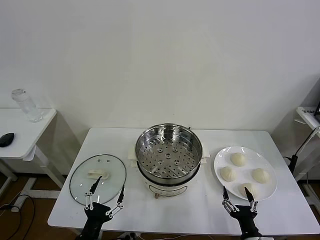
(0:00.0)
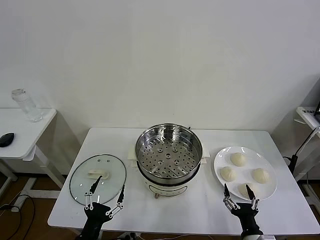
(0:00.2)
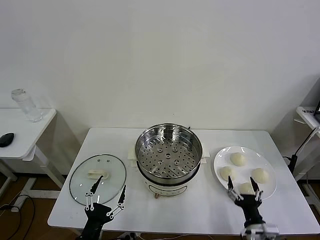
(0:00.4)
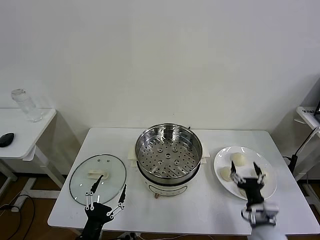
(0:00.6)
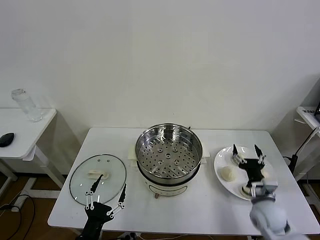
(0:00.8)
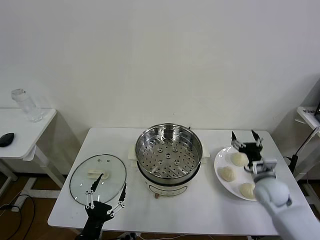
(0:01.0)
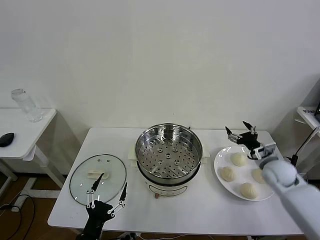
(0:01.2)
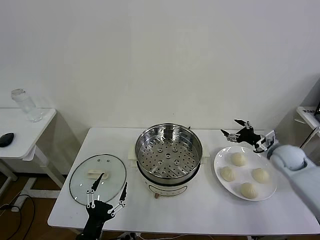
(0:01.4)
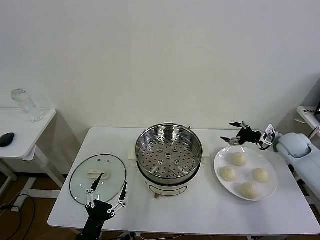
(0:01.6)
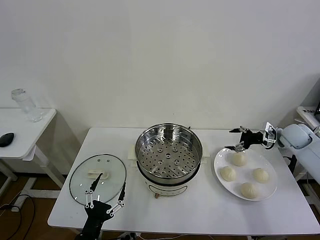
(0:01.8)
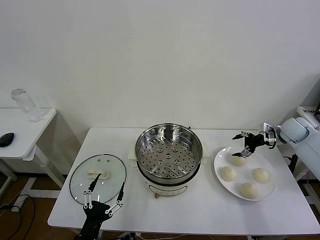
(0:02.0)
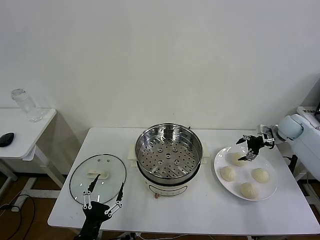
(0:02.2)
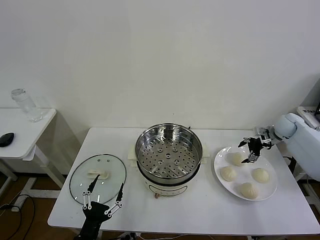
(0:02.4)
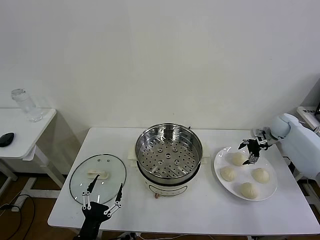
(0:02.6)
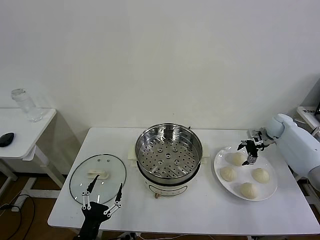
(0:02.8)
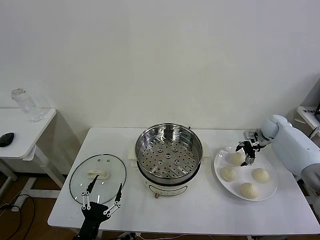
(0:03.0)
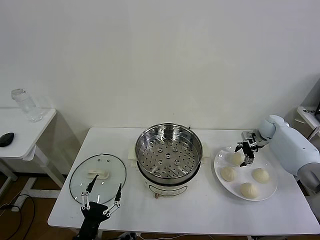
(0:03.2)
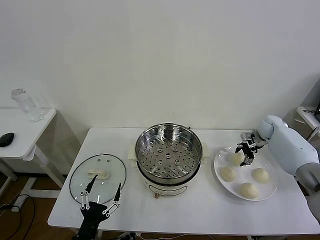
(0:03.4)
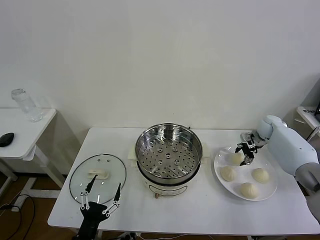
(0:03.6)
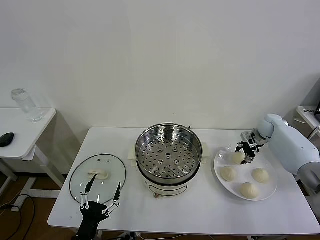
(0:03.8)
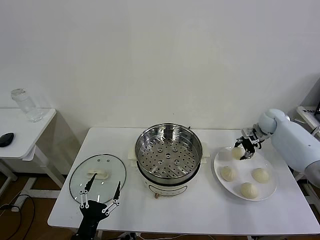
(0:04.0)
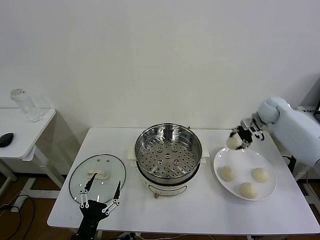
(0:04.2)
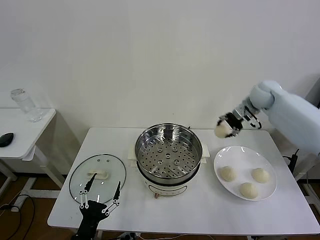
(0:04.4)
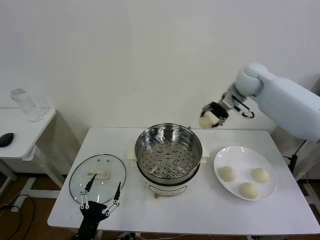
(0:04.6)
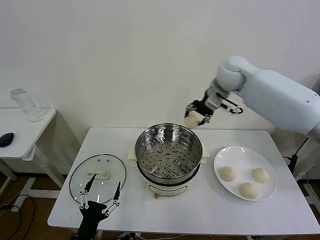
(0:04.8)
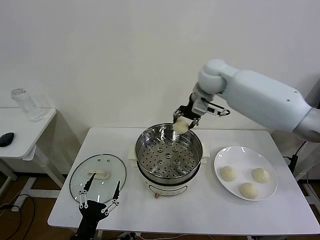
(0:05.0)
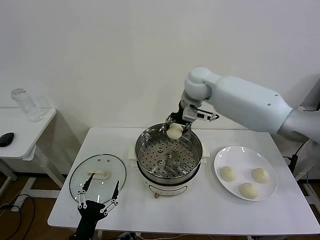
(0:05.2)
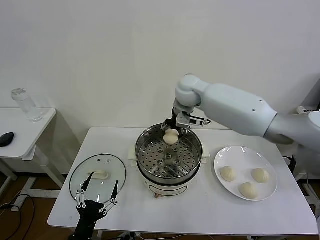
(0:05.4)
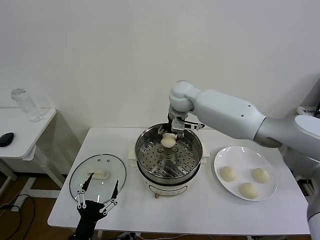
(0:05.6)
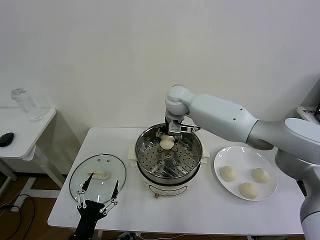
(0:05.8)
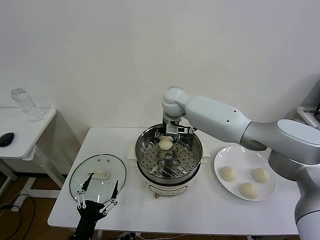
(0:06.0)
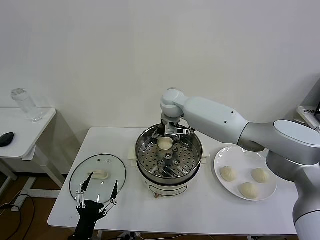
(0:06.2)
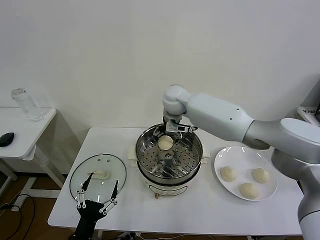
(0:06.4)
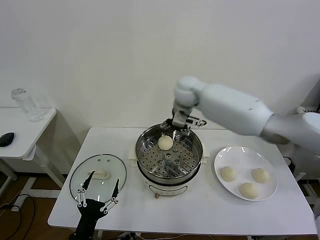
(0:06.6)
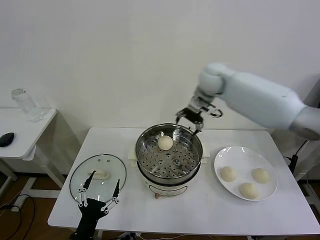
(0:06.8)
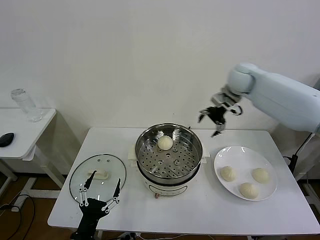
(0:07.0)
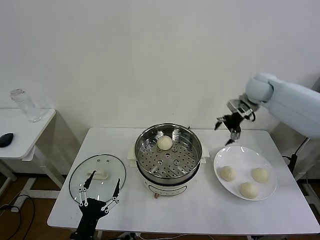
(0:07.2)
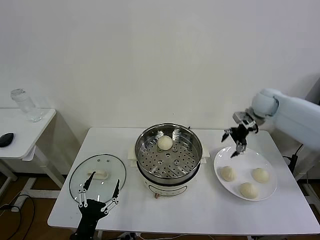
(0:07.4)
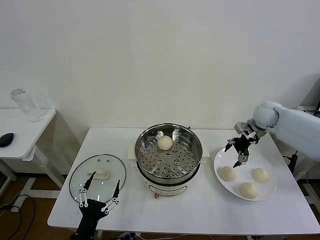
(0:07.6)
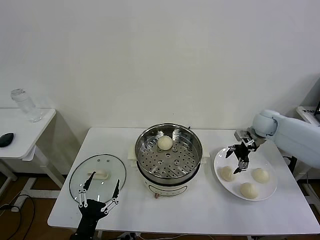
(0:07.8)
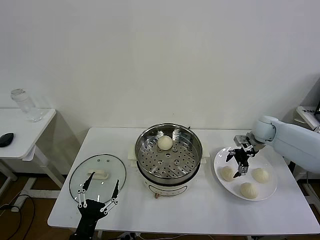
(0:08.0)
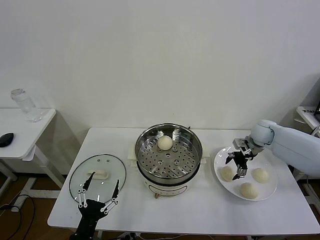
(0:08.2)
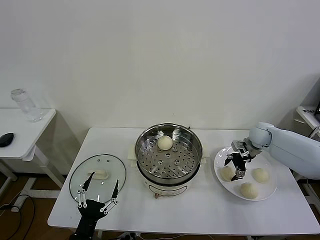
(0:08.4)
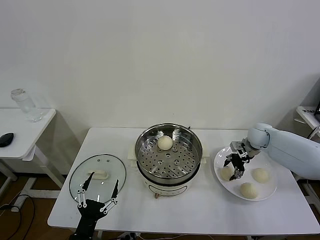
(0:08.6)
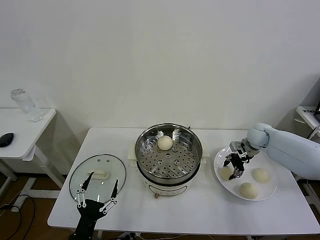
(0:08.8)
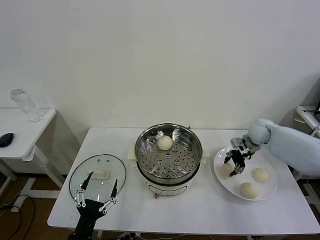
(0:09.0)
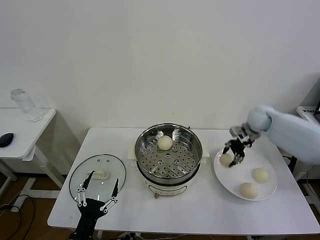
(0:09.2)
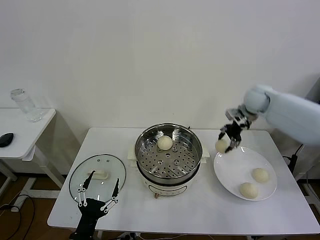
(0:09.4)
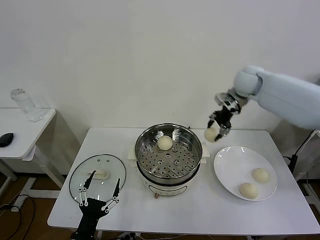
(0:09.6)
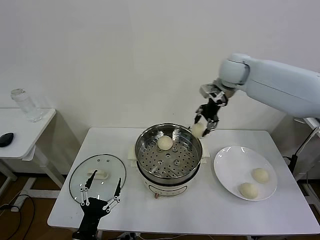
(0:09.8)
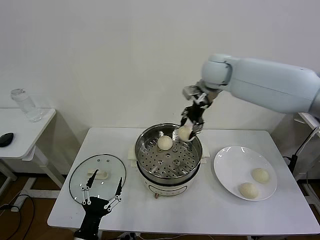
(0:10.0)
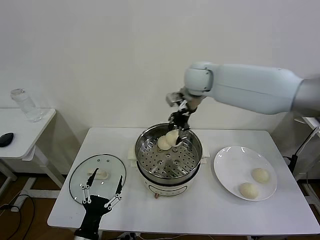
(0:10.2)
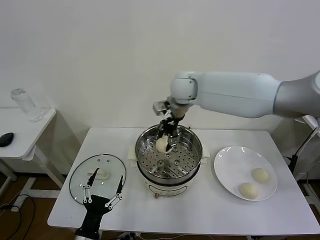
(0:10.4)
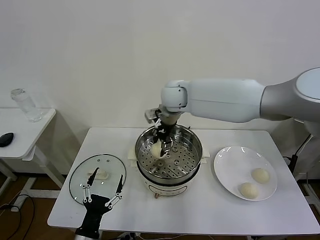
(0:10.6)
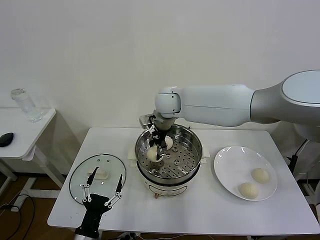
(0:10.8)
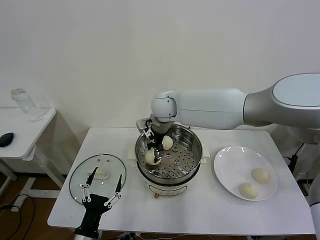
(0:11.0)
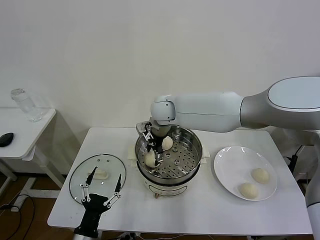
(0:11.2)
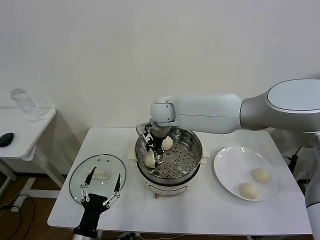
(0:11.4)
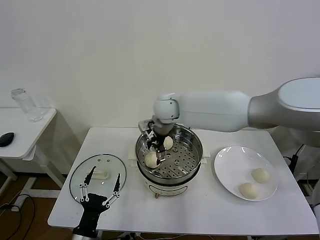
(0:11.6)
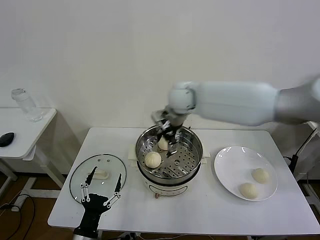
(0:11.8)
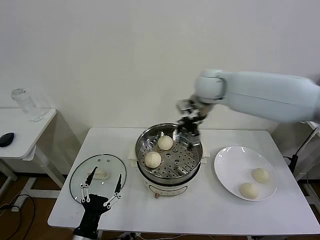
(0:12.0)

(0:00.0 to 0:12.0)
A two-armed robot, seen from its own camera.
Task of the whole recording: take steamed baozi put them in steamer then cover it.
Step, 0:00.0 - 0:03.6: Grasp the baozi in the plate with right gripper.
Step, 0:03.8 - 0:06.4: Place the baozi on the steamer with right gripper.
Step, 0:06.6 - 0:08.8: Grasp the baozi in the plate with right gripper.
Step, 0:09.0 - 0:11.4: Place the baozi on the steamer with right gripper.
0:01.6 - 0:03.0: The right gripper goes roughly 10 cm forward.
0:03.0 - 0:04.4: The right gripper heads upward and to the left, covering roughly 25 cm, and closes up.
0:04.4 - 0:06.0: The right gripper moves to the left, some 30 cm.
0:06.0 - 0:07.6: The right gripper is displaced to the right by about 35 cm, and opens up.
0:07.6 - 0:09.0: The right gripper closes.
0:09.0 - 0:10.4: The right gripper is displaced to the left and upward by approximately 35 cm.
0:10.4 - 0:12.0: The right gripper goes some 10 cm to the right, and opens up.

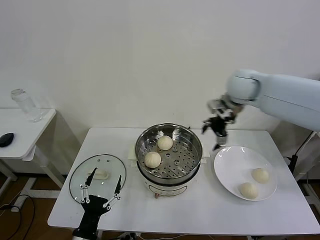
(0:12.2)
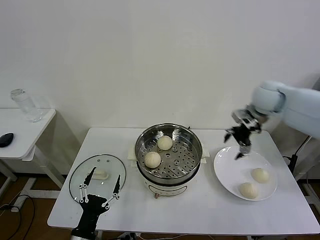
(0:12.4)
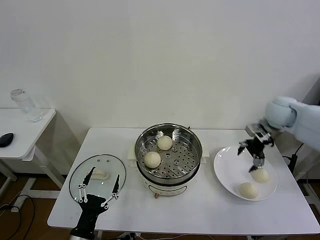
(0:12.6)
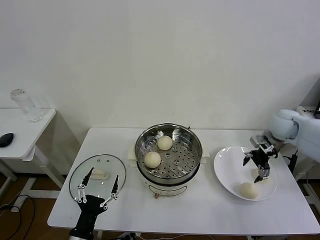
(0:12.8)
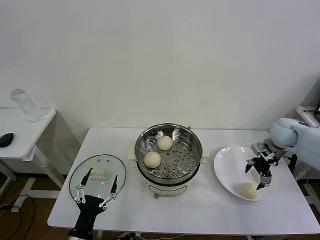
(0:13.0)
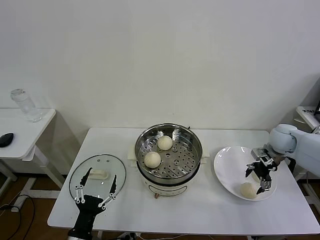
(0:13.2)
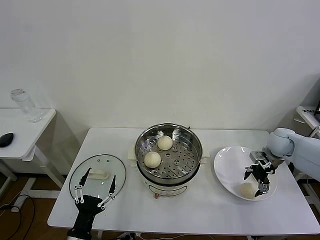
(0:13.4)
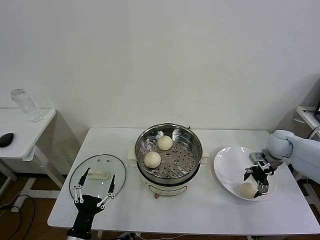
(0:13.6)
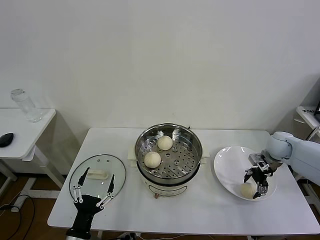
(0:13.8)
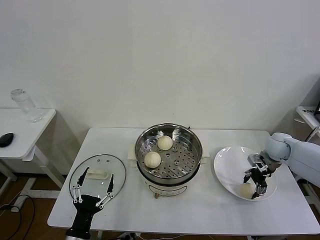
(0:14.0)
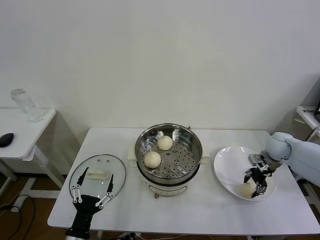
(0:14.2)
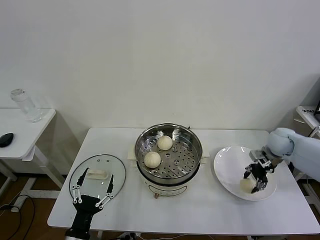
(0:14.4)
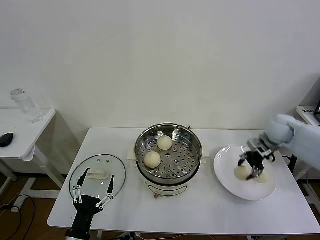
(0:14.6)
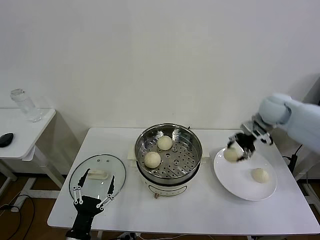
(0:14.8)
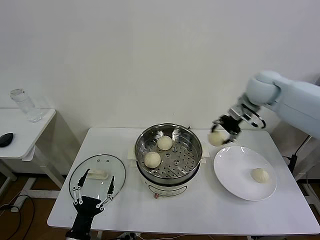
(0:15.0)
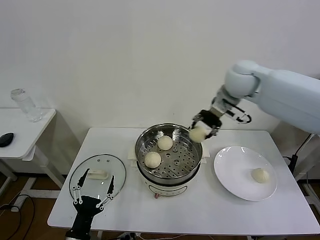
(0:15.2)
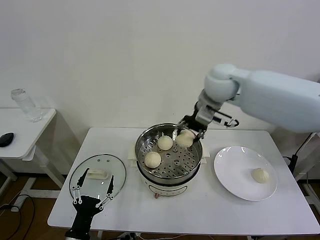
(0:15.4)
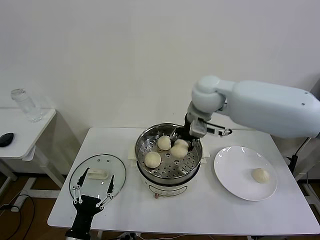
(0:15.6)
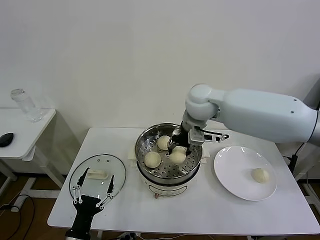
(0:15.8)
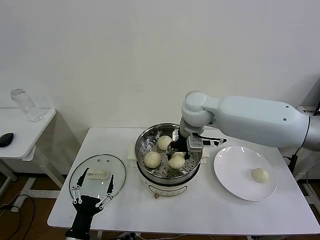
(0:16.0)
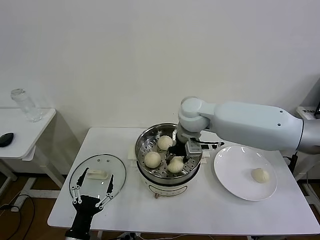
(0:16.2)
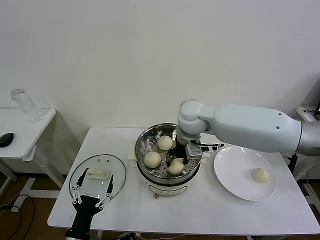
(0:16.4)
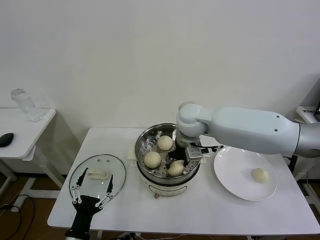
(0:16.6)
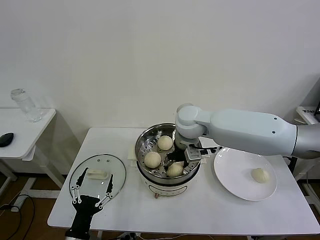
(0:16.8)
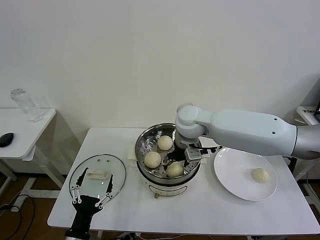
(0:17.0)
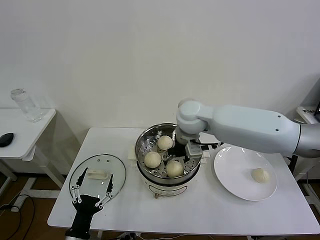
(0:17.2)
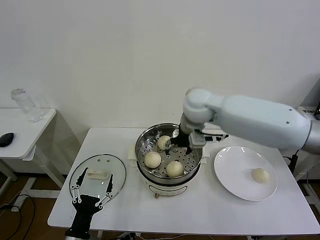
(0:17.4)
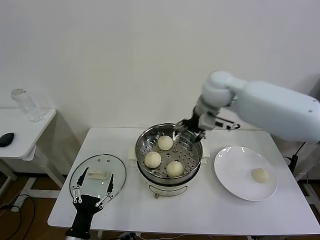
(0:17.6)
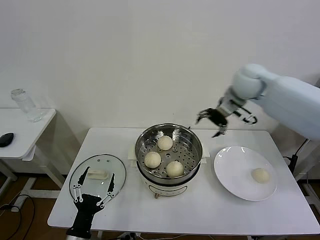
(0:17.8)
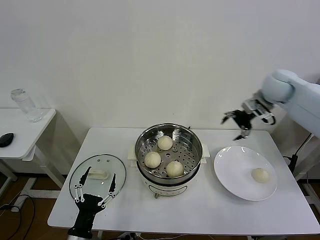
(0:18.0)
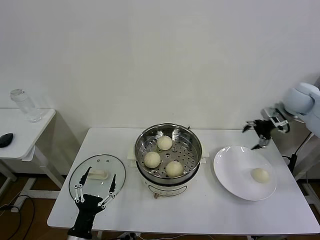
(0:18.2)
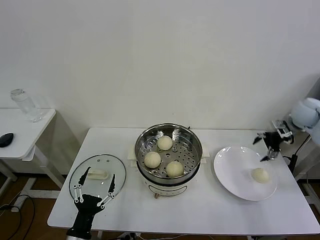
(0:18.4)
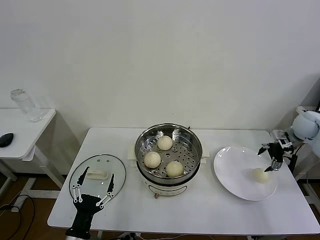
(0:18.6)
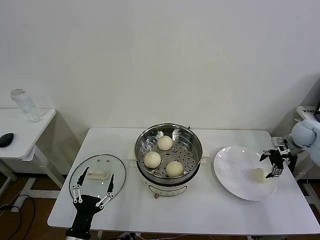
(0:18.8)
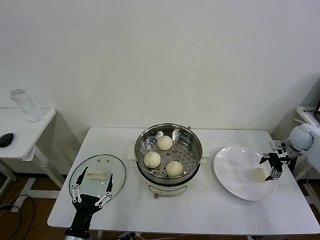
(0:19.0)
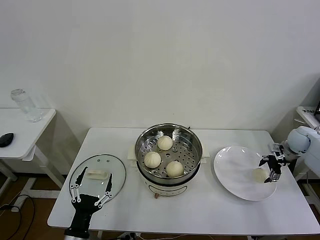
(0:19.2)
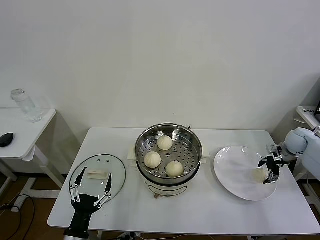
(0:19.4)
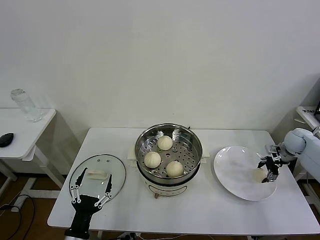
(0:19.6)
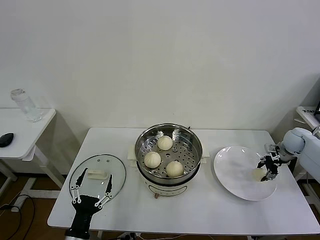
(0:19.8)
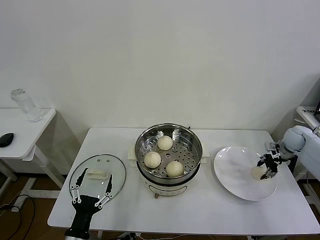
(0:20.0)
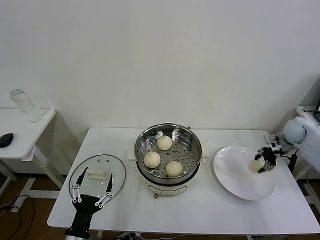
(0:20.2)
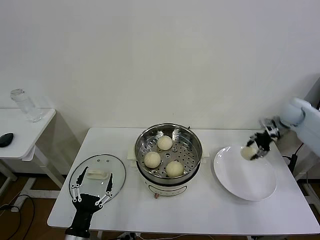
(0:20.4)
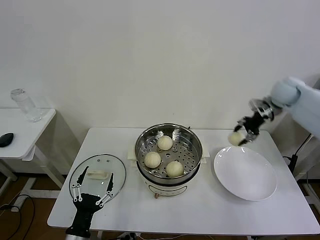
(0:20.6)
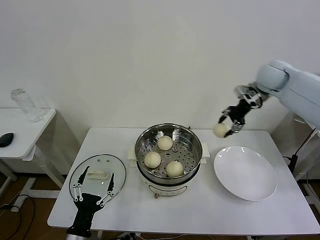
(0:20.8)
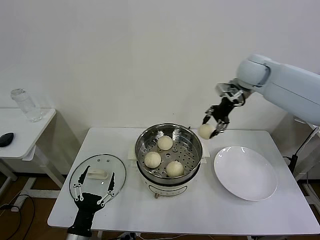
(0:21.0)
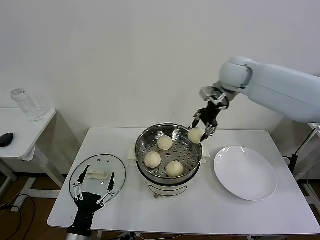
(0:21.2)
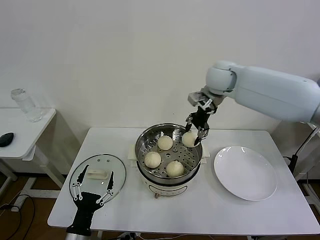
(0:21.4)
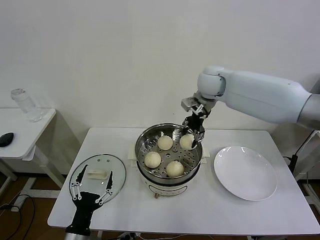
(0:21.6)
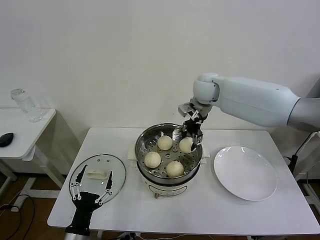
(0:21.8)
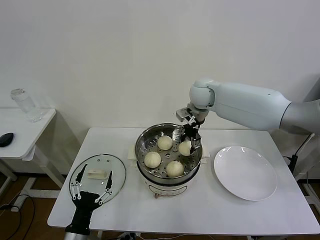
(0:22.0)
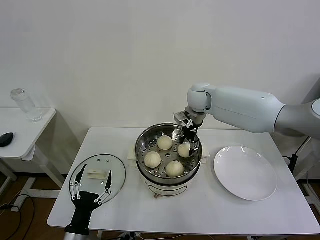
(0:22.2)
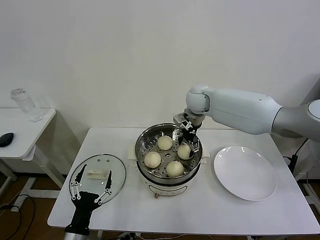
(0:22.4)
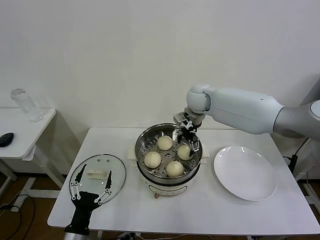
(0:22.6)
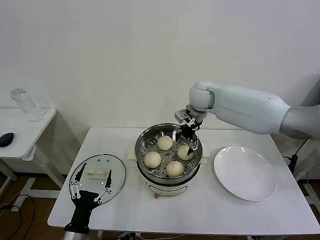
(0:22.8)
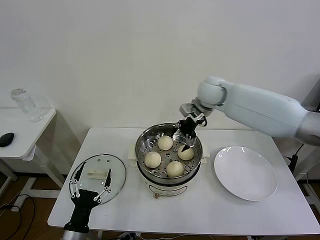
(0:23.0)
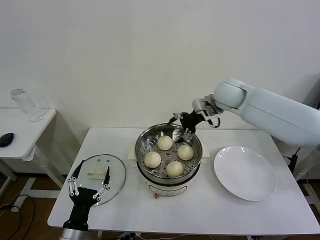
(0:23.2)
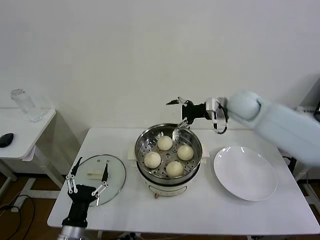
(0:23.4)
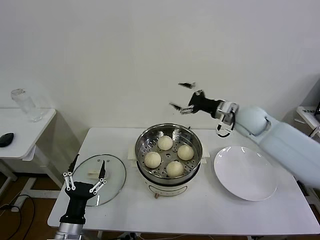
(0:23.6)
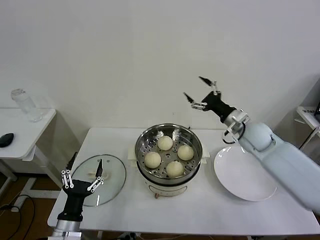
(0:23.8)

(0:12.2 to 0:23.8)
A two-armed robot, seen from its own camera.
Task of the whole recording: take steamed baozi put them in steamer then cover it.
Step, 0:12.2 - 0:14.2: Grasp the baozi in the plate with right gripper.
Step, 0:14.4 - 0:17.0: Place the baozi on the steamer with right gripper.
Step, 0:17.4 - 0:19.8: Grasp the baozi in the plate with right gripper.
Step, 0:20.0 - 0:22.6: Place the baozi on the steamer with right gripper.
0:12.2 - 0:13.6: The right gripper is displaced downward and to the right by about 25 cm.
0:13.6 - 0:15.0: The right gripper travels upward and to the left by roughly 25 cm, and closes its fingers.
0:15.0 - 0:16.6: The right gripper shifts approximately 20 cm to the left and downward.
0:16.6 - 0:18.0: The right gripper is displaced to the right by roughly 30 cm, and opens.
0:18.0 - 0:19.4: The right gripper heads downward and to the right, covering about 25 cm.
0:19.4 - 0:21.0: The right gripper is displaced to the left and upward by about 35 cm, and closes up.
0:21.0 - 0:22.4: The right gripper goes about 20 cm to the left and downward, and opens its fingers.
0:22.4 - 0:23.8: The right gripper moves to the right and backward, some 20 cm.
